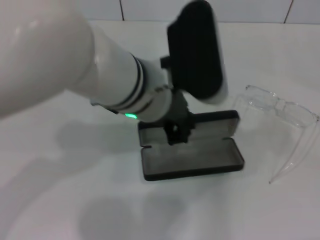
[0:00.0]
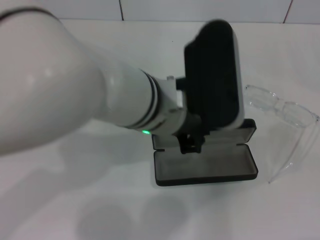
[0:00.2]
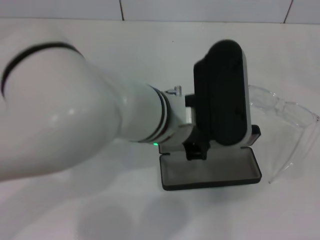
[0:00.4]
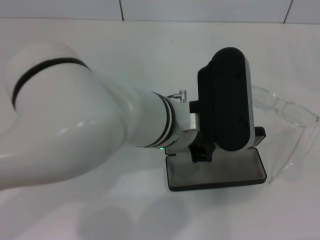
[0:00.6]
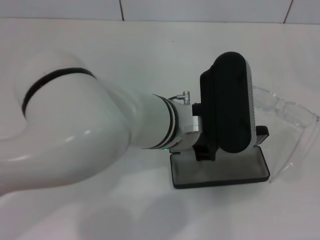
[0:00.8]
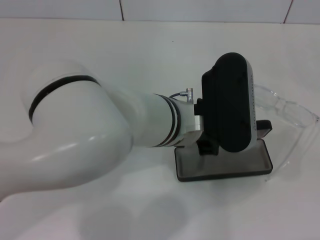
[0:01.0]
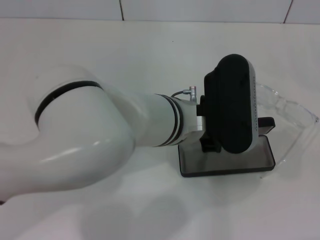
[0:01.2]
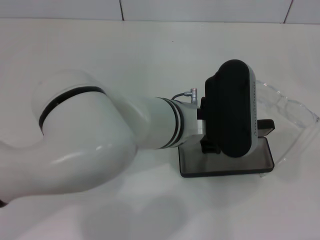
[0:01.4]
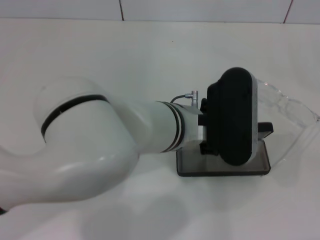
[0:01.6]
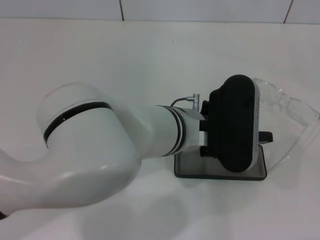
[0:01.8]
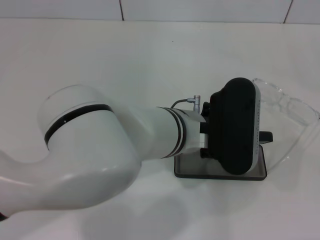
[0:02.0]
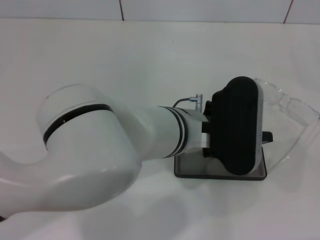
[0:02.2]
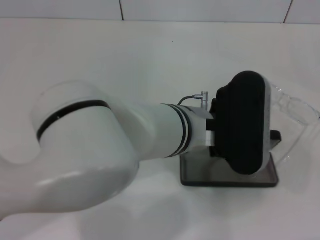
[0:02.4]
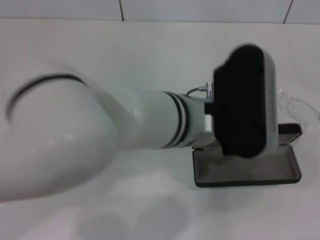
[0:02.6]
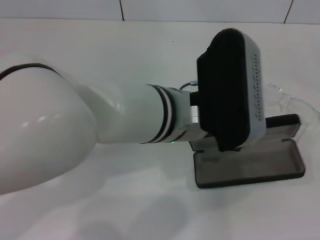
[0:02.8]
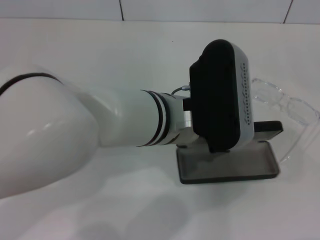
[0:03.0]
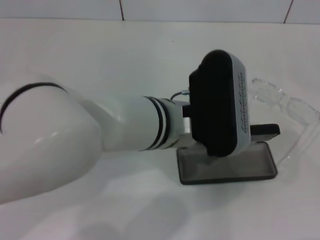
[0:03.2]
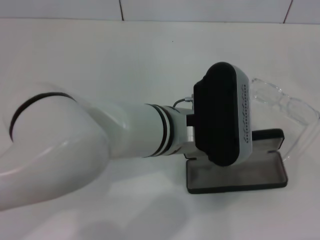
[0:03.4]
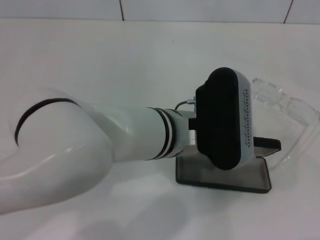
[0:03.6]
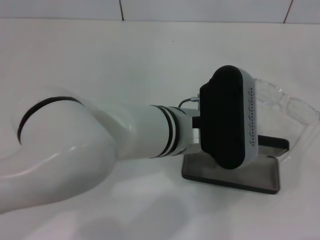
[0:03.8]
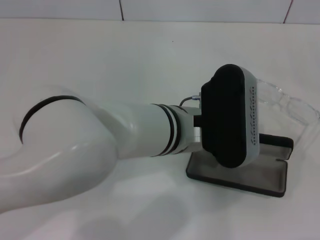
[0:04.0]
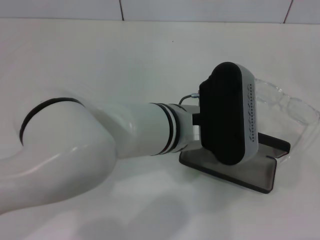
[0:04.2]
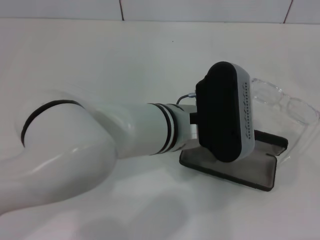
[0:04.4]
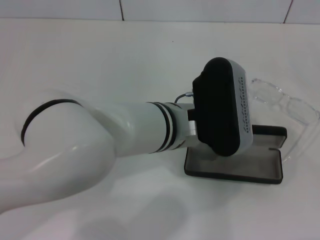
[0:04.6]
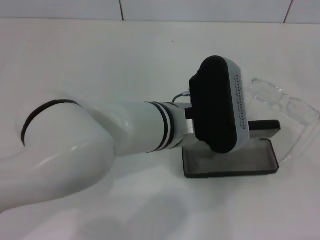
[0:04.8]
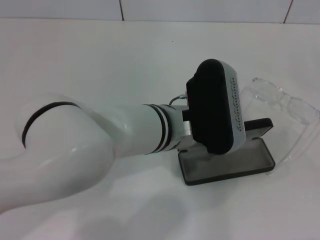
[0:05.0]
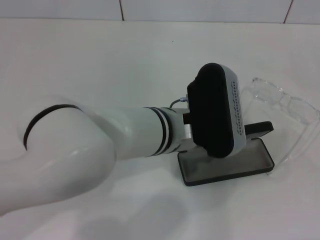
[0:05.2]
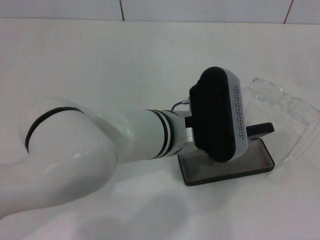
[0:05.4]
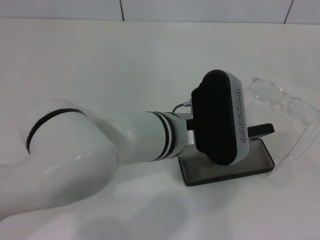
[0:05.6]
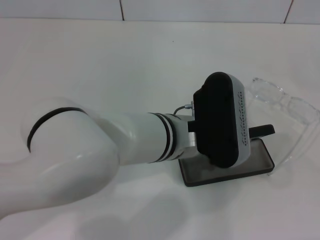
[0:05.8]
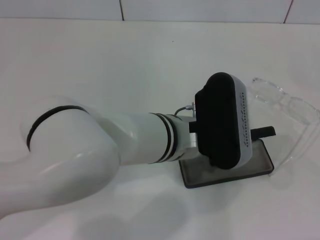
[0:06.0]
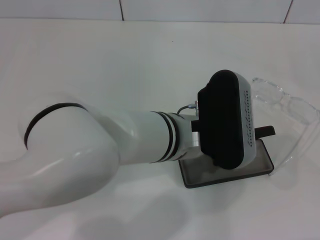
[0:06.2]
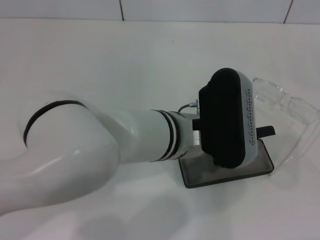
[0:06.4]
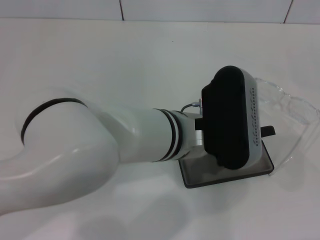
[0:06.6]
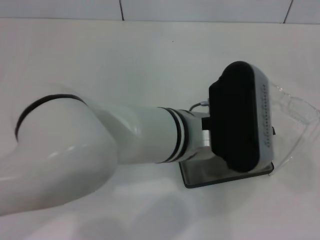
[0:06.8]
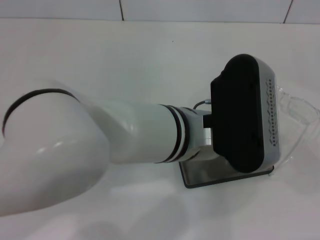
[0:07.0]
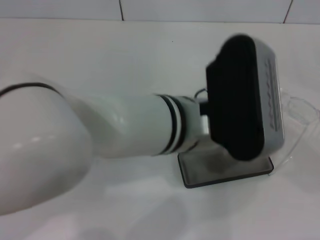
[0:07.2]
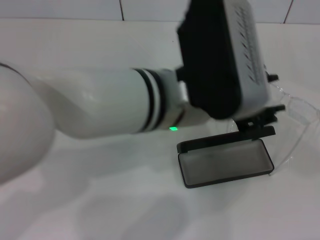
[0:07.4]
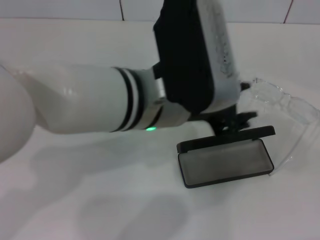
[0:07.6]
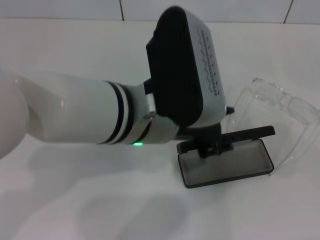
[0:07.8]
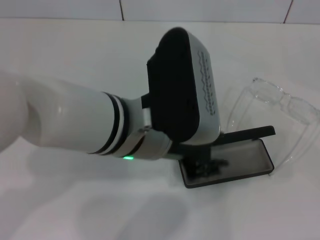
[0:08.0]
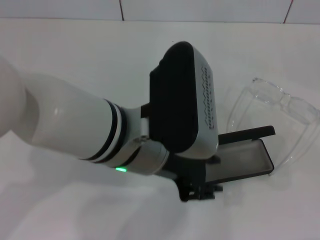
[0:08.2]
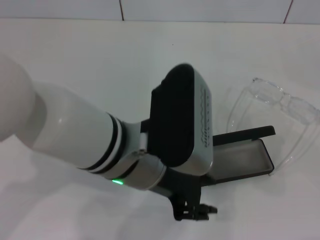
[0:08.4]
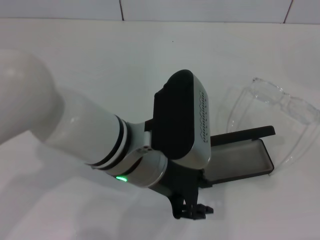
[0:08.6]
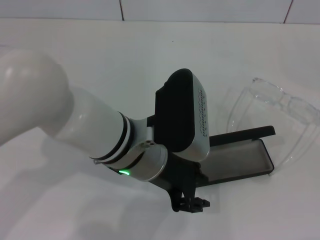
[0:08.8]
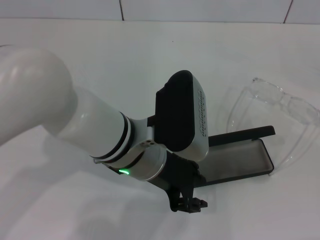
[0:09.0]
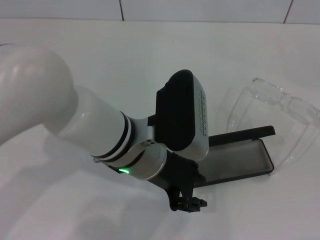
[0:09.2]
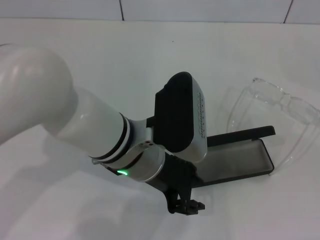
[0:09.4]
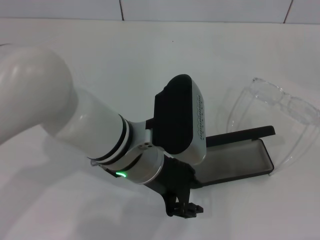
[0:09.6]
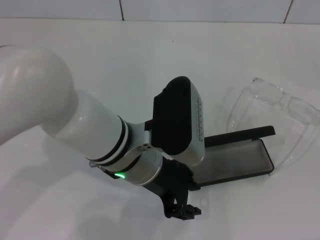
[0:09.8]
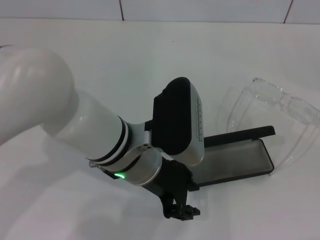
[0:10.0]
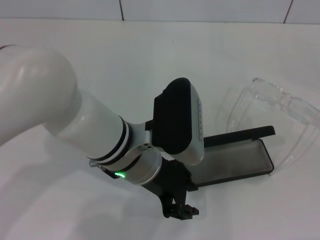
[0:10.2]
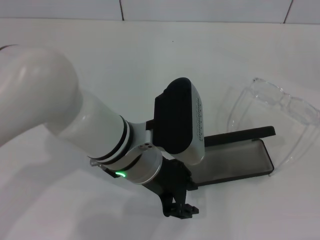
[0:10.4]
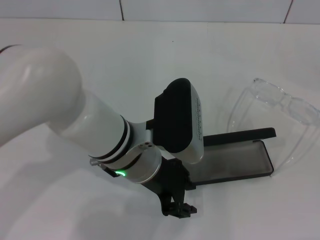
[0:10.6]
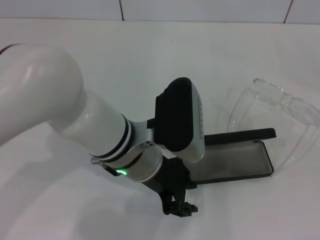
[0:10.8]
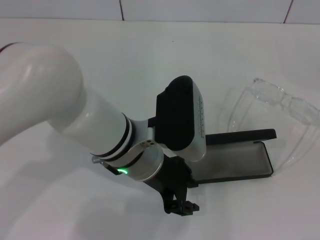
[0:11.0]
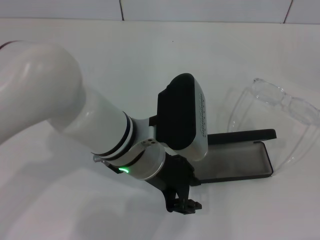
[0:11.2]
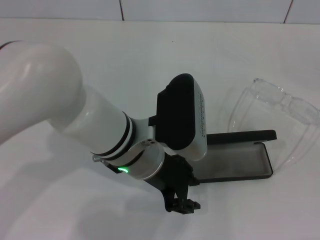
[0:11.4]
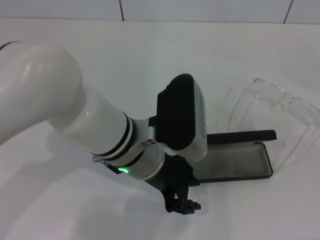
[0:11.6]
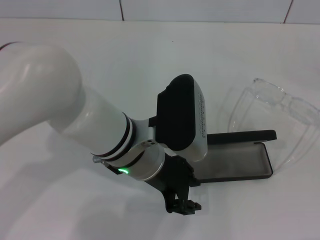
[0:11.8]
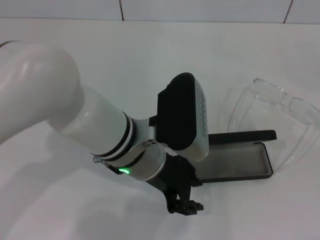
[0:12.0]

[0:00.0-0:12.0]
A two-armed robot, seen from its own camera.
Step, 0:00.0 to 0:06.4: Place the glasses case in the center of the table with your left hand.
0:00.0 to 0:01.6: The left gripper shifts approximately 5 cm downward.
0:01.6 to 0:03.0: The left gripper opens up.
0:03.0 to 0:06.0: The grippers make only small movements.
0:06.0 to 0:07.6: The left gripper heads upward, covering roughly 10 cm. The right gripper moves upward, approximately 5 cm.
0:07.6 to 0:09.0: The left gripper moves downward, about 5 cm.
0:09.0 to 0:10.4: Both grippers stay put.
0:10.4 to 0:12.0: Both grippers stay about where they are.

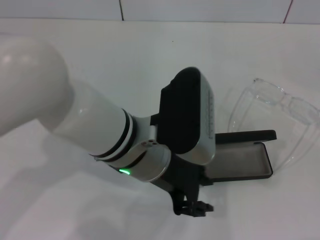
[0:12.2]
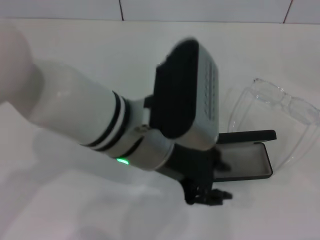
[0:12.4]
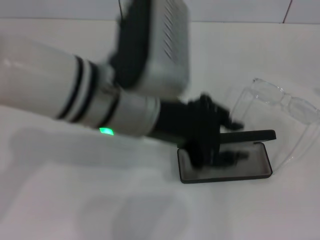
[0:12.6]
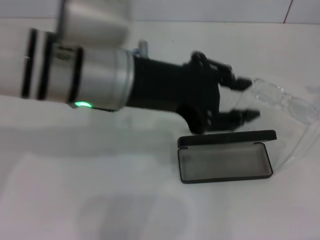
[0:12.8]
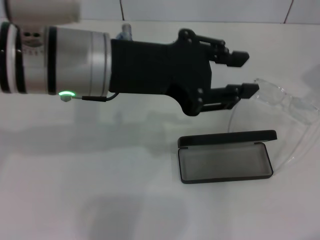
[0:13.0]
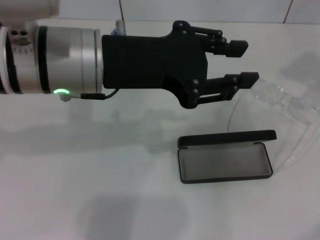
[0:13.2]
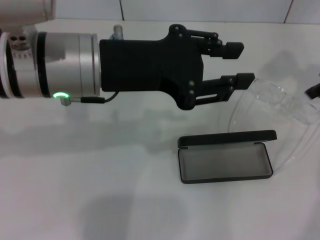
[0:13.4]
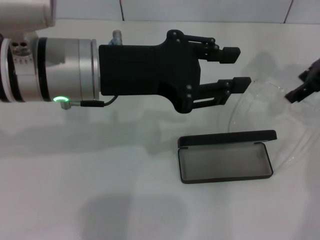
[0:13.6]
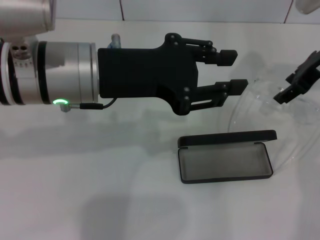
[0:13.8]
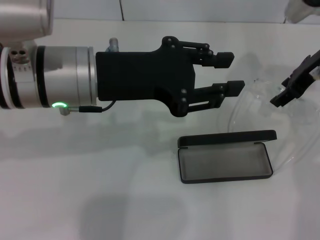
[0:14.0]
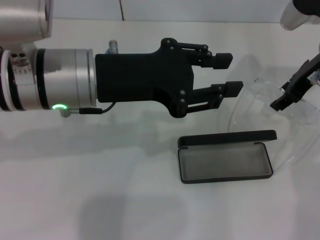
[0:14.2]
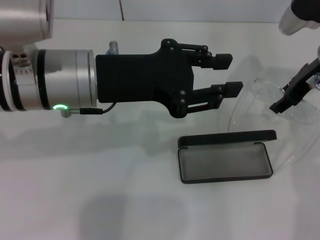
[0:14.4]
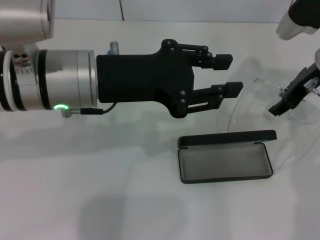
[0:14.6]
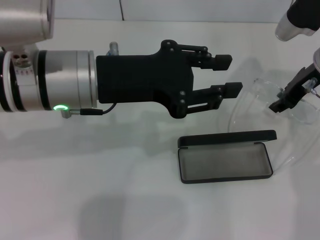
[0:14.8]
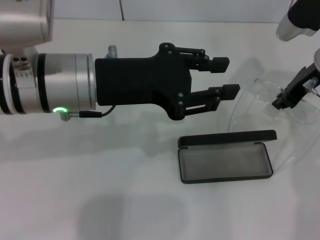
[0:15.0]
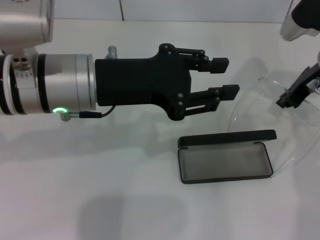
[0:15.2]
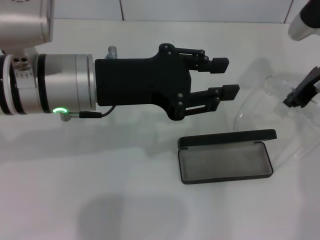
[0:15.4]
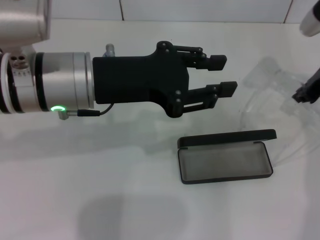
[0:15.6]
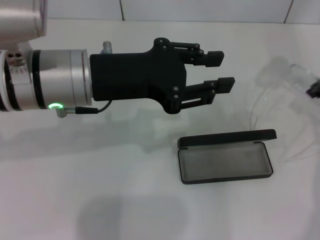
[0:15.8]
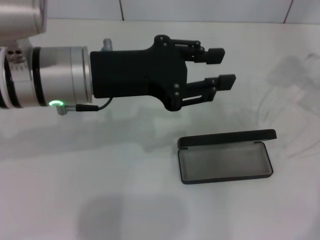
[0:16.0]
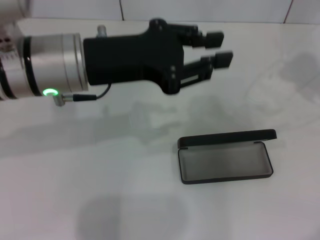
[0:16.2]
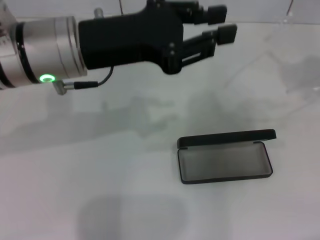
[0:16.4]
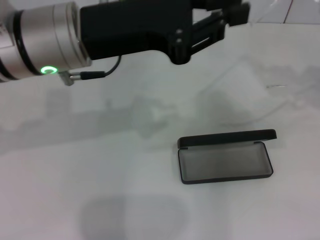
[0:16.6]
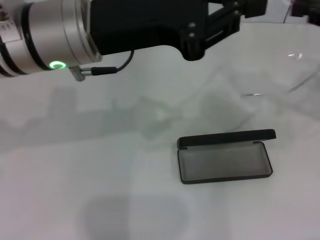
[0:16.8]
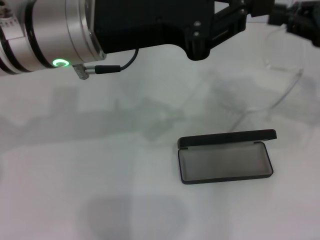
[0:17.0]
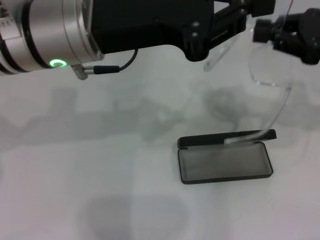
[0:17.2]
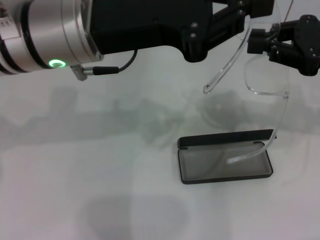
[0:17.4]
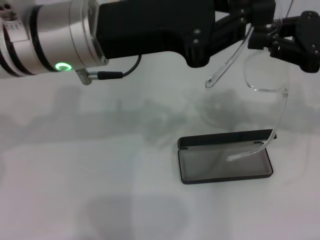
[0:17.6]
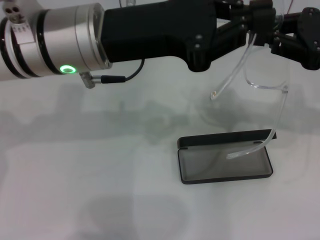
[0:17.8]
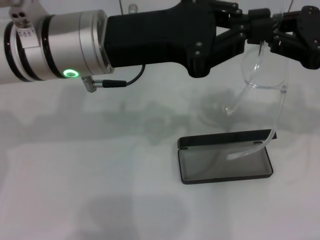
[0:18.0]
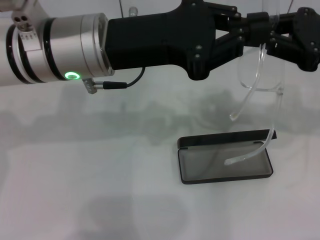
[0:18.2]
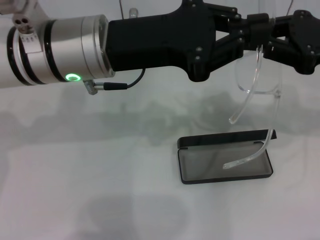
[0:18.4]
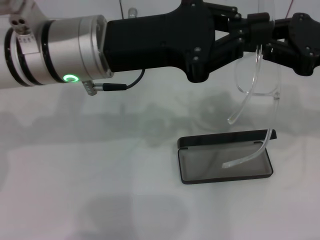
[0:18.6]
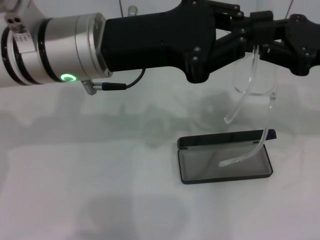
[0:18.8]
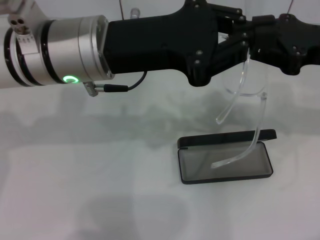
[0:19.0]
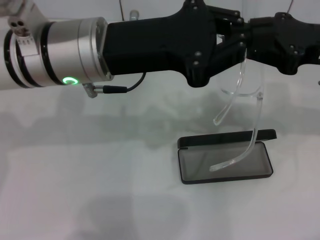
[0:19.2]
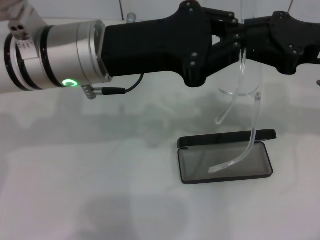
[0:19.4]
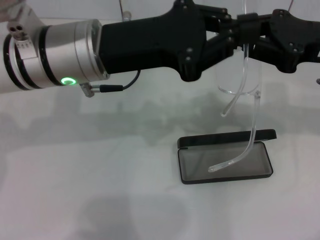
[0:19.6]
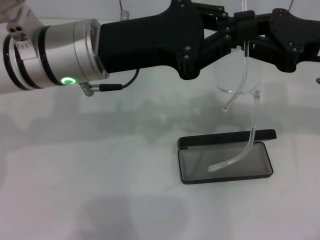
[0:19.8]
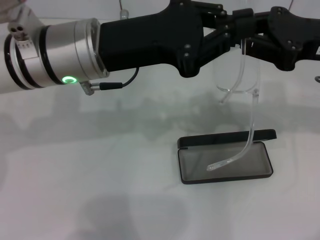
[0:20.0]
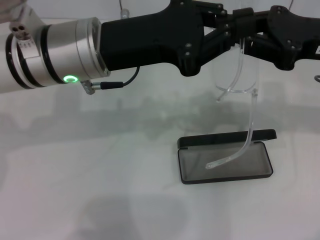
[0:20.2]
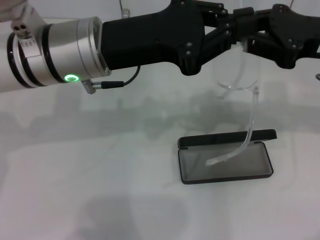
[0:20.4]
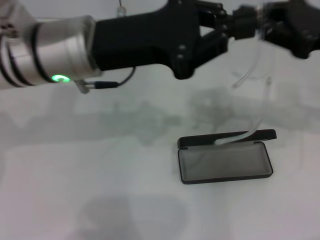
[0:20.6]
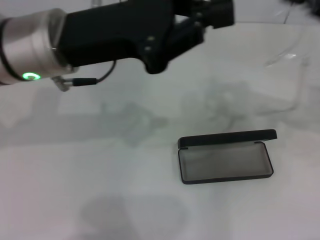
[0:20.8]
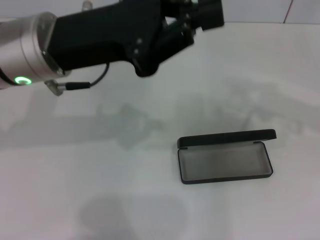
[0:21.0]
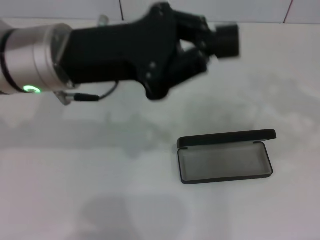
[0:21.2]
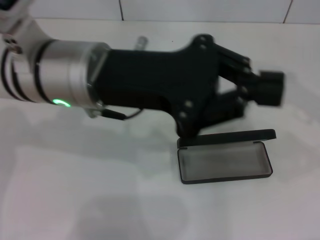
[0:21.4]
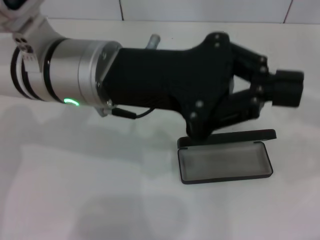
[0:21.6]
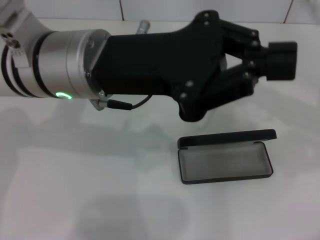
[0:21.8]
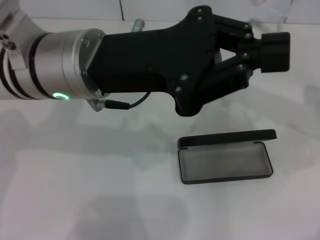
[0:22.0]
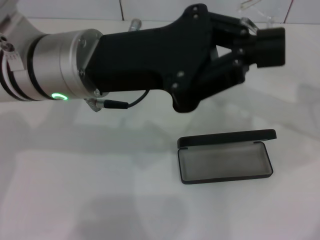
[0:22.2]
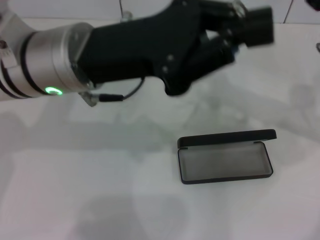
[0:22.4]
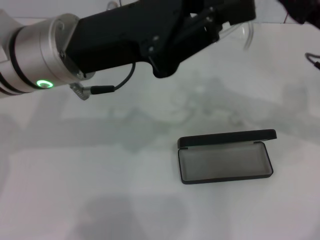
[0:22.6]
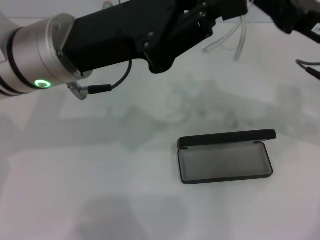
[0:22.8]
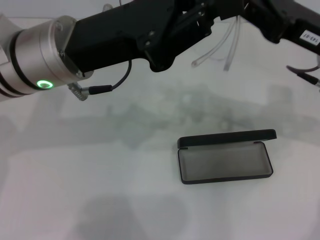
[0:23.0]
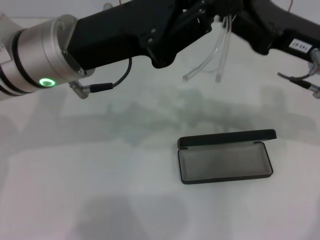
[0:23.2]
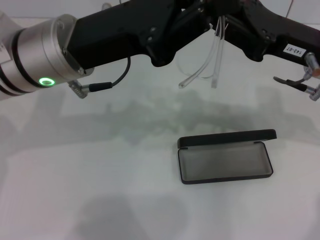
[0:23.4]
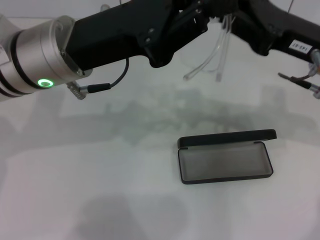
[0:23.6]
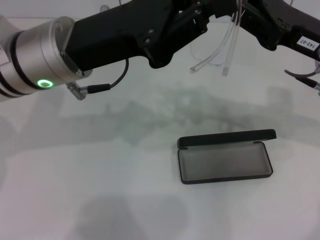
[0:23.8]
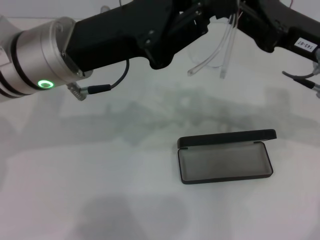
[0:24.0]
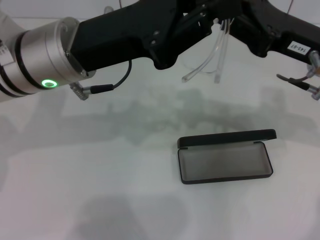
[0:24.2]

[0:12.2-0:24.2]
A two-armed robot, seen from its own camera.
Step, 0:12.2 to 0:15.4: Grab the eyeglass frame with your right hand.
0:12.2 to 0:13.8: The left gripper travels to the left and upward by some 10 cm. Meanwhile the right gripper heads forward and to the left, covering some 25 cm.
0:13.8 to 0:15.2: The right gripper closes its fingers.
0:15.2 to 0:16.6: The right gripper shifts roughly 15 cm to the right, upward and backward.
0:16.6 to 0:18.2: The right gripper heads to the left, covering some 5 cm.
0:18.2 to 0:19.8: The grippers make only small movements.
0:19.8 to 0:21.2: The right gripper goes some 10 cm to the right.
0:21.2 to 0:22.6: The right gripper shifts some 15 cm to the left.
0:22.6 to 0:24.2: The grippers move only a little.
